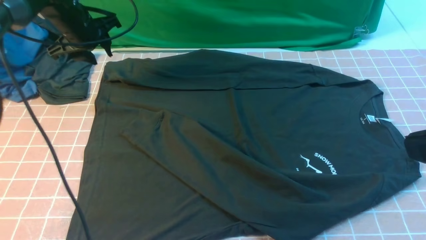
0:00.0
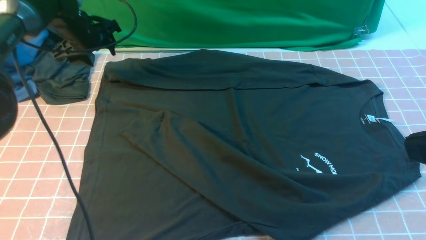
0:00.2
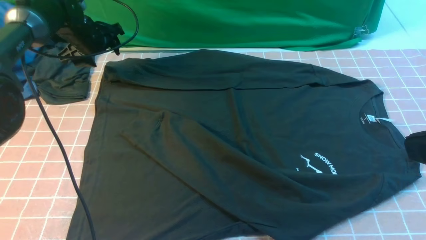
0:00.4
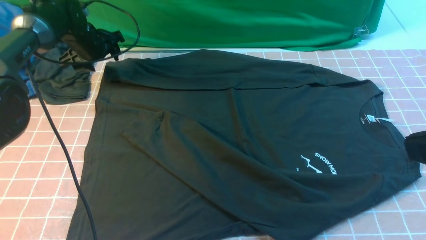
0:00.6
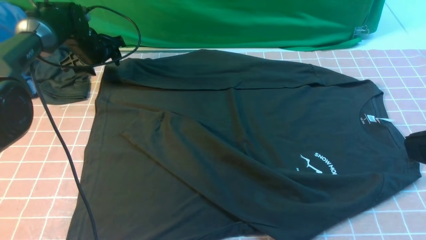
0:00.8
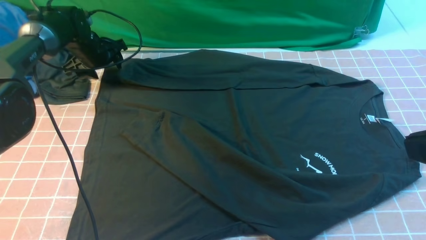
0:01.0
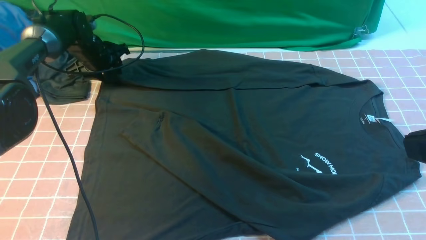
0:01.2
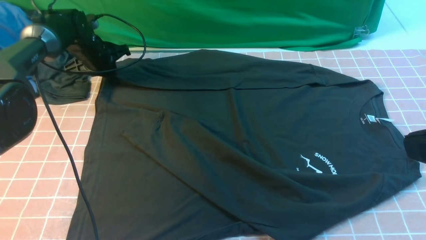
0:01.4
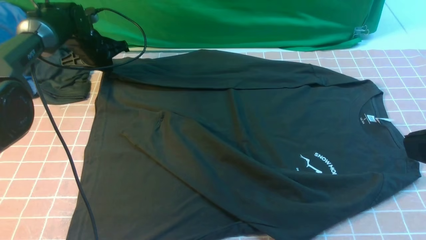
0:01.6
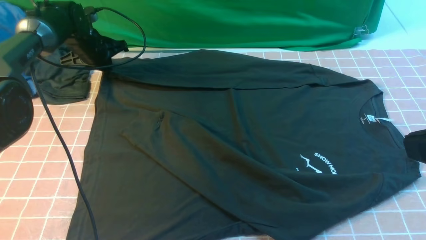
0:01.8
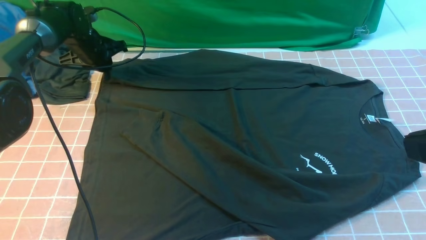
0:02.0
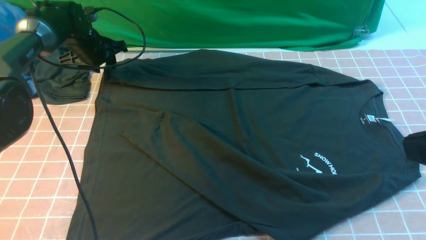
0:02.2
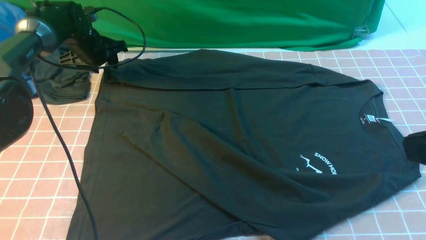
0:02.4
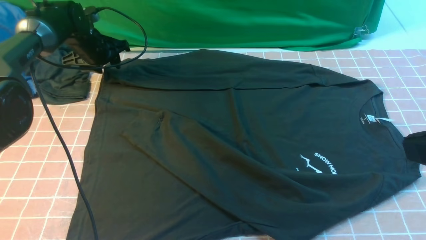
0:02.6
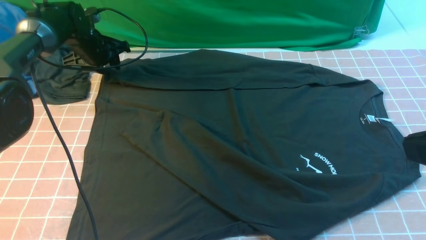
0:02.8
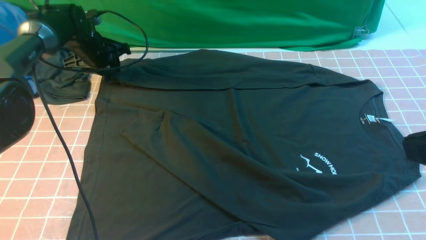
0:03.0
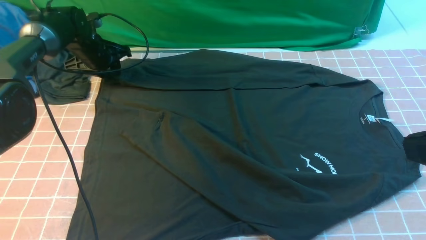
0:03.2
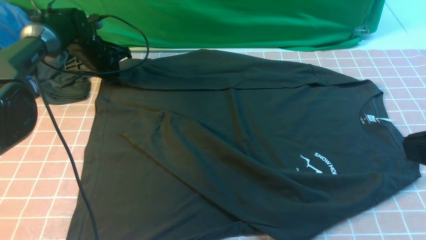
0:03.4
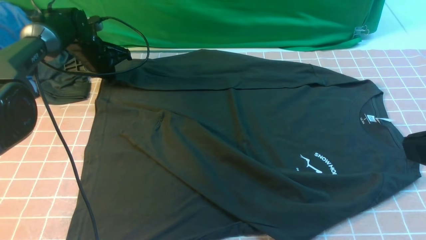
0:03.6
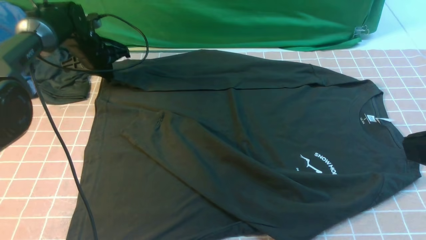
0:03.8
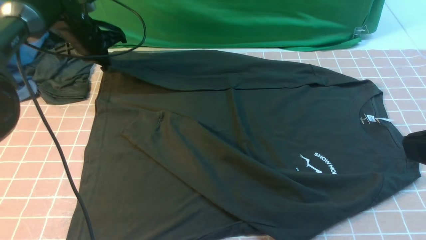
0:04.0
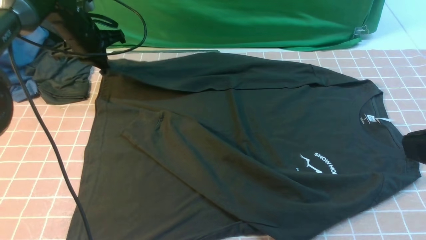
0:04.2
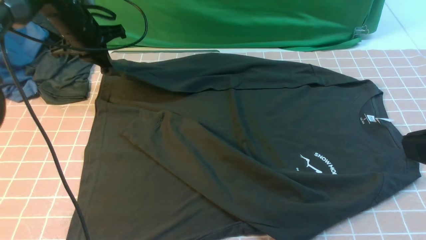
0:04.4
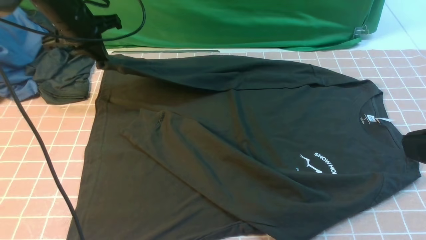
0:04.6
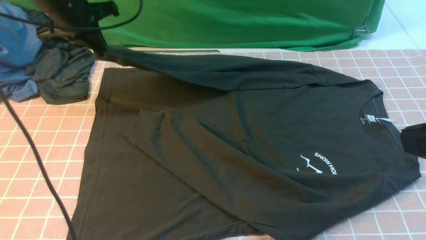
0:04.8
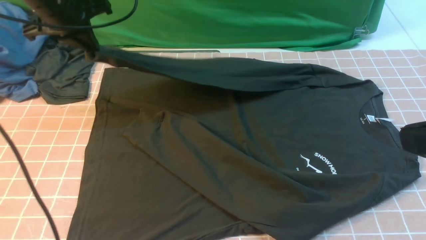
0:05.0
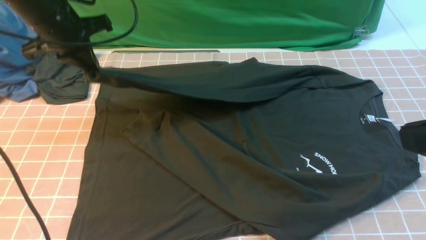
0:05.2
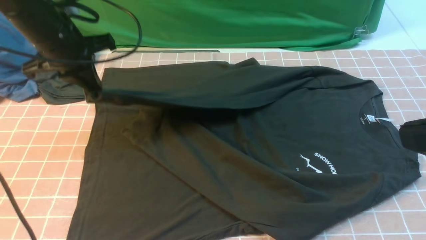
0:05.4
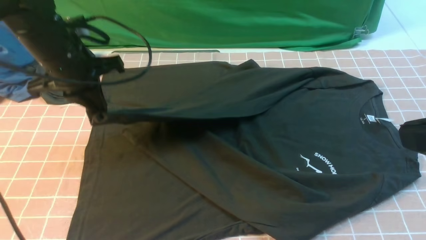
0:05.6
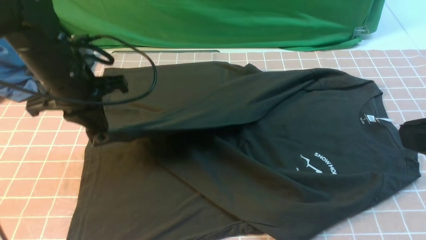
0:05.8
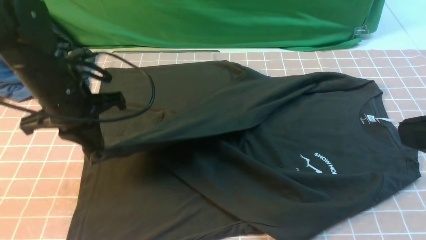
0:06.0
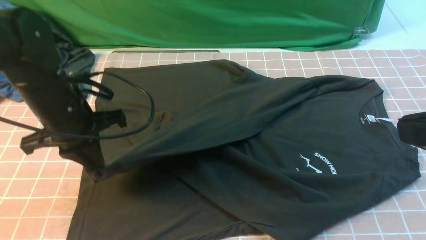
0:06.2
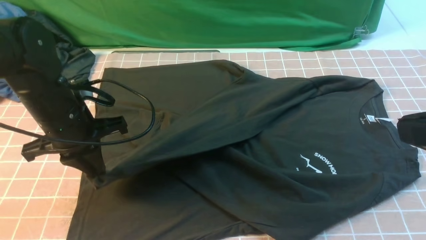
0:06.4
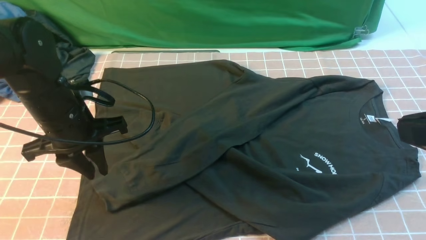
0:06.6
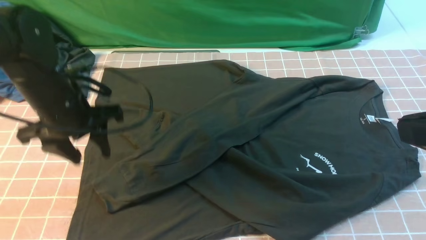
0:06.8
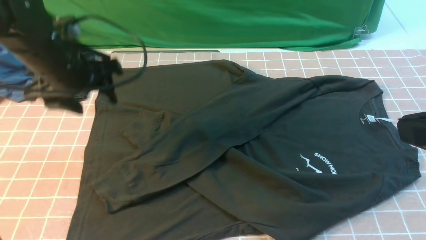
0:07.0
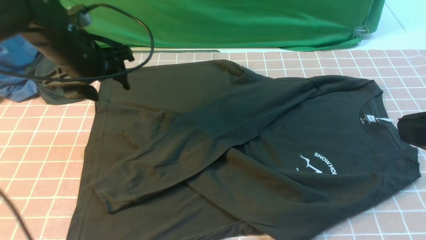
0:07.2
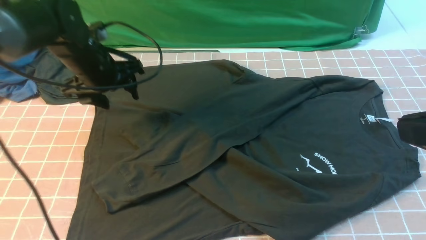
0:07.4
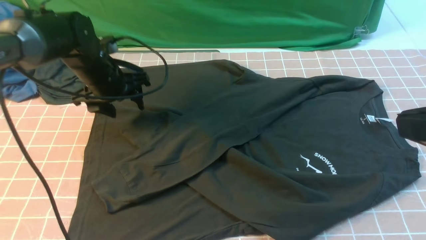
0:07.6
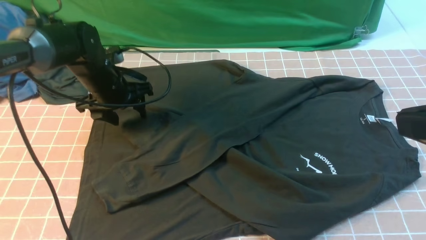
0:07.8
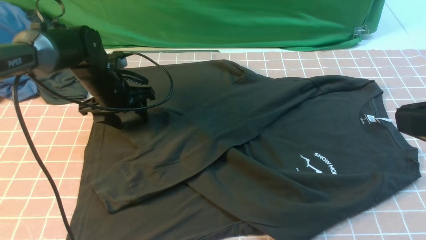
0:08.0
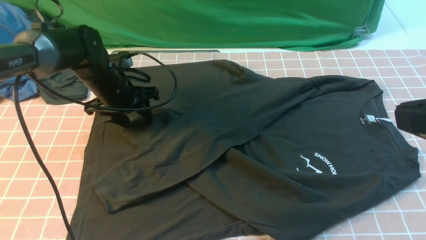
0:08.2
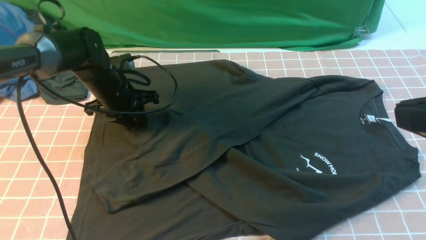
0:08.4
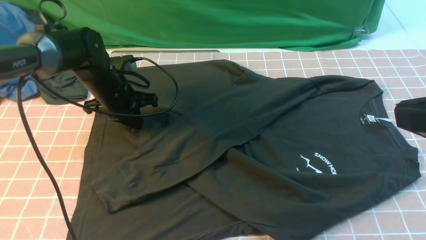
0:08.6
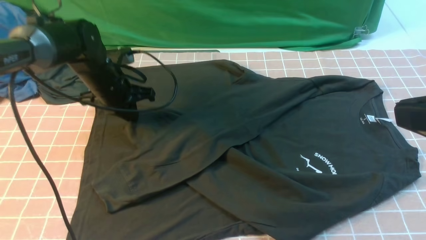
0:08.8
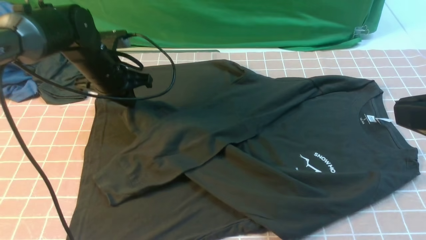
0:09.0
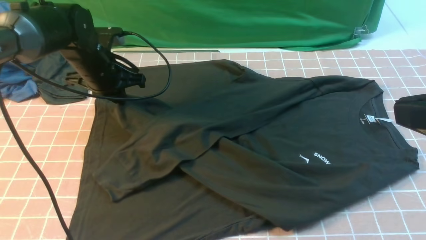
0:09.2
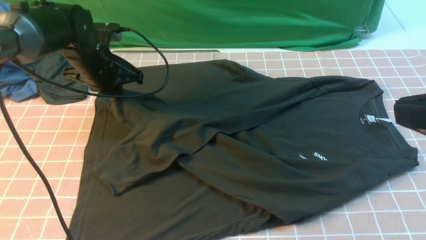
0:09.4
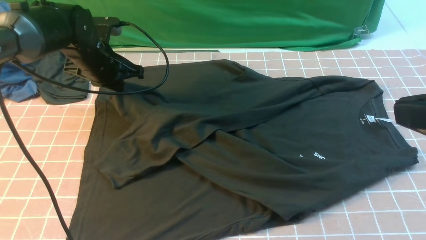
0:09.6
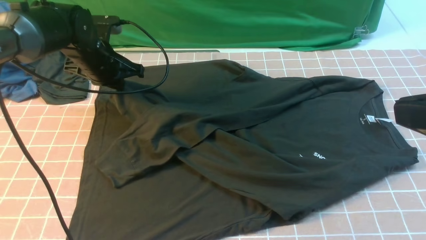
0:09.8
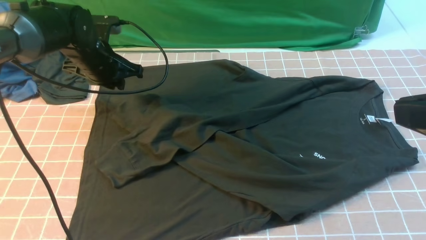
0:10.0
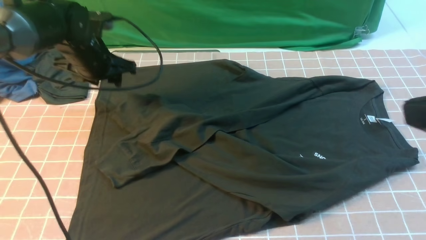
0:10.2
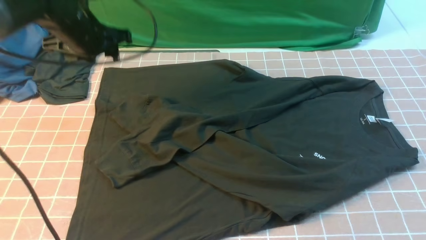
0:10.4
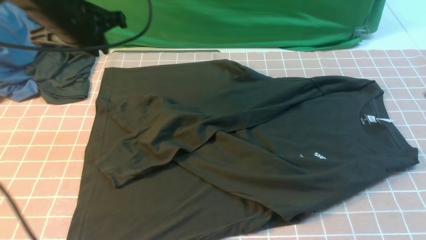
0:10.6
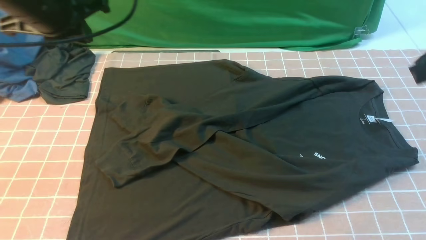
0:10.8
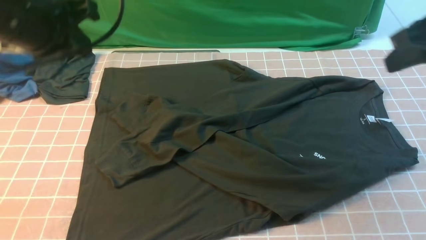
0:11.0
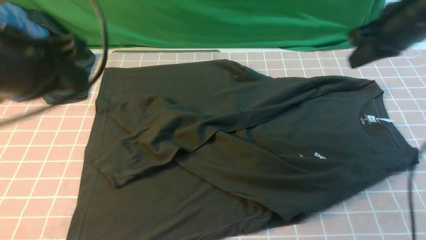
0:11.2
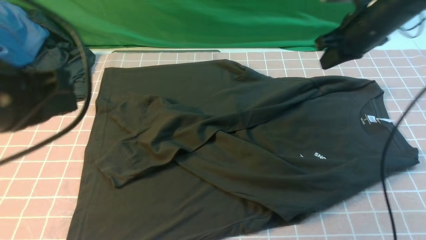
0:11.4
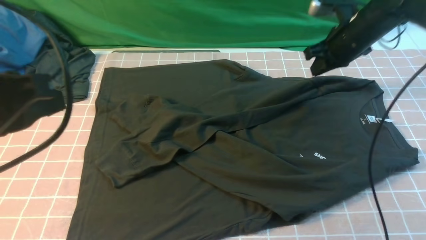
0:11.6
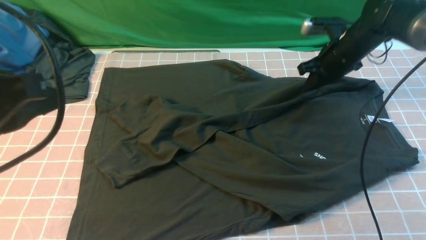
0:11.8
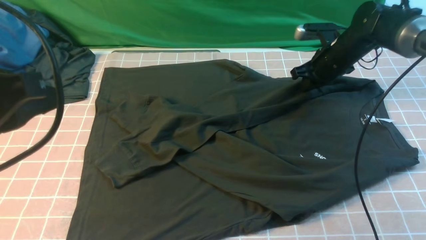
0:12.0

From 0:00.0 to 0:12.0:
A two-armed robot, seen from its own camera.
Step, from 0:00.0 to 0:06.6: use the left arm to drag and drop the cuff onto the cuff closest to the left arm.
Step, from 0:06.8 to 0:08.8: use the left arm to clamp the cuff closest to it.
From 0:00.0 to 0:01.6: The left gripper moves downward, about 5 cm, and closes up.
From 0:01.6 to 0:03.0: The left gripper opens its fingers.
From 0:03.0 to 0:04.4: The left gripper moves upward, approximately 10 cm, and closes.
From 0:04.4 to 0:06.0: The left gripper heads backward, covering approximately 20 cm.
From 0:06.0 to 0:07.6: The left gripper moves forward and downward, approximately 10 cm, and opens its fingers.
From 0:07.6 to 0:09.0: The left gripper closes.
From 0:09.0 to 0:10.4: The left gripper travels upward by about 10 cm, and opens up.
From 0:10.4 to 0:12.0: The right gripper shifts some 40 cm forward and downward. The left gripper travels backward by roughly 25 cm, and closes.

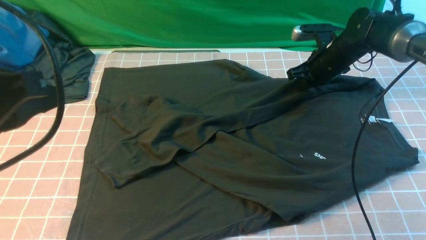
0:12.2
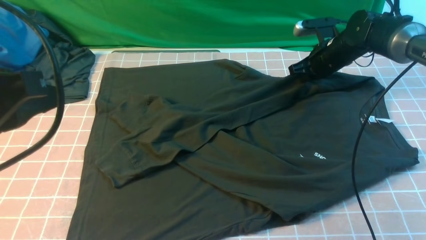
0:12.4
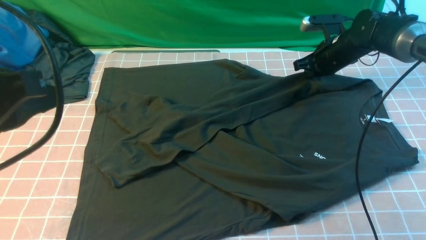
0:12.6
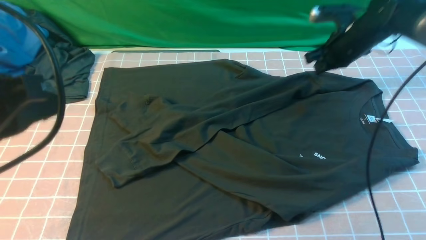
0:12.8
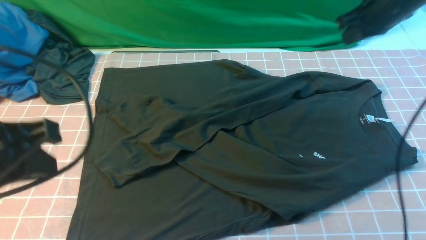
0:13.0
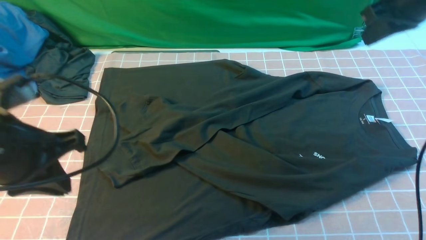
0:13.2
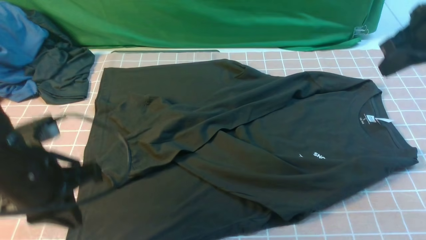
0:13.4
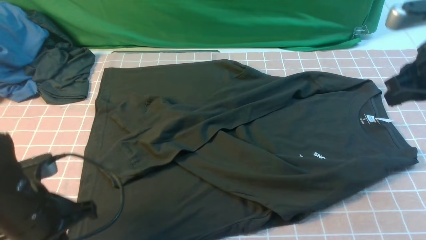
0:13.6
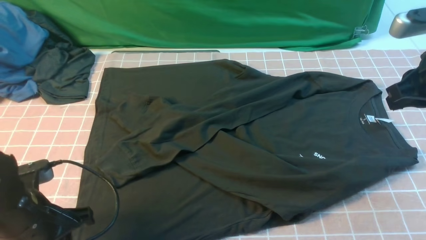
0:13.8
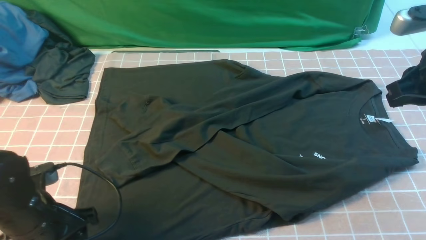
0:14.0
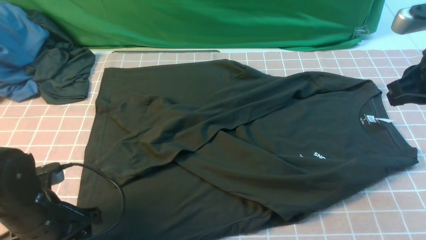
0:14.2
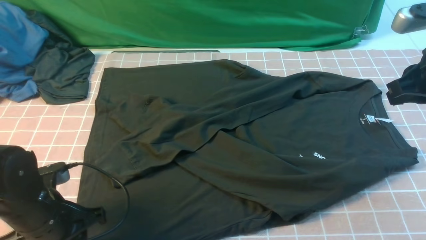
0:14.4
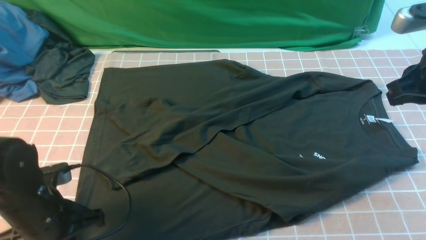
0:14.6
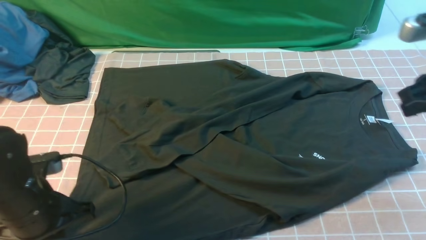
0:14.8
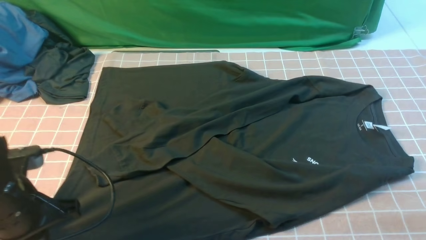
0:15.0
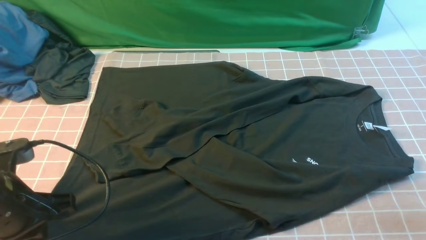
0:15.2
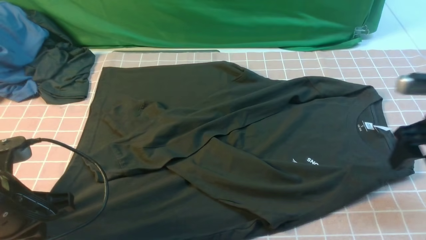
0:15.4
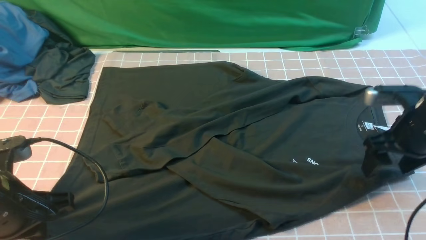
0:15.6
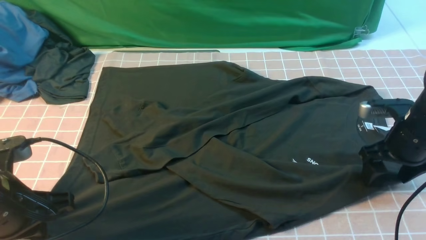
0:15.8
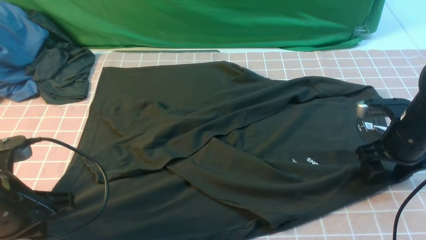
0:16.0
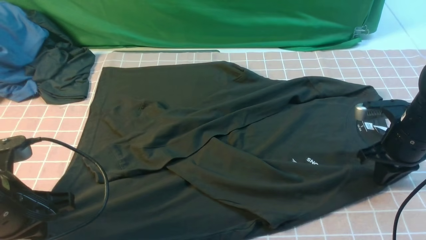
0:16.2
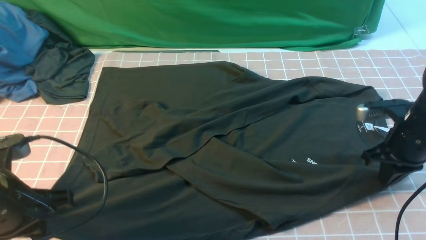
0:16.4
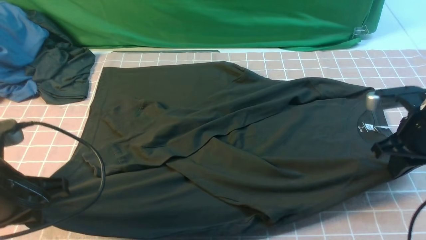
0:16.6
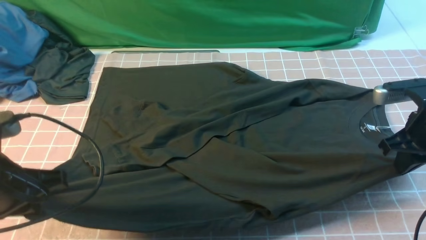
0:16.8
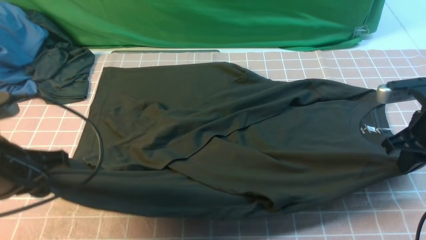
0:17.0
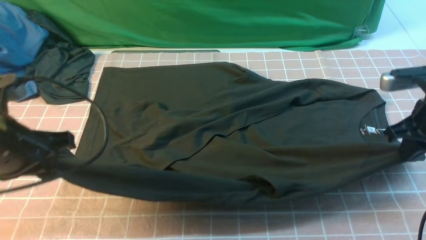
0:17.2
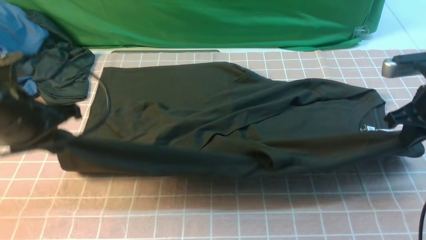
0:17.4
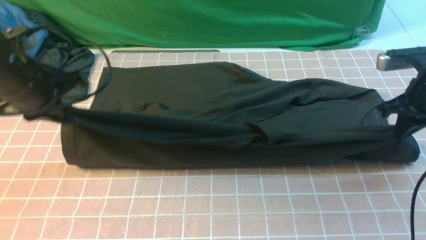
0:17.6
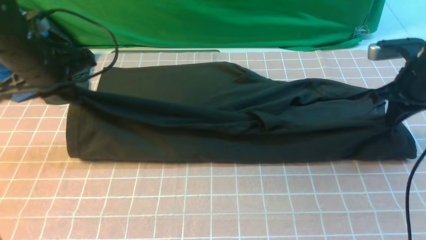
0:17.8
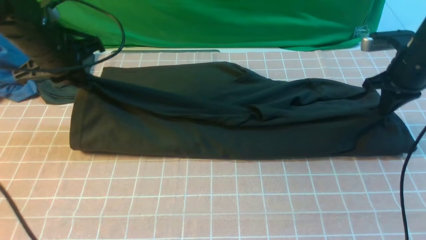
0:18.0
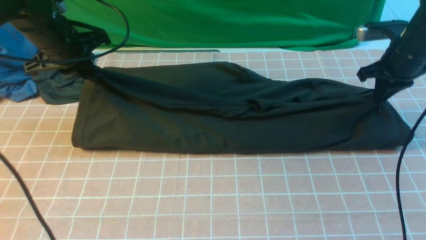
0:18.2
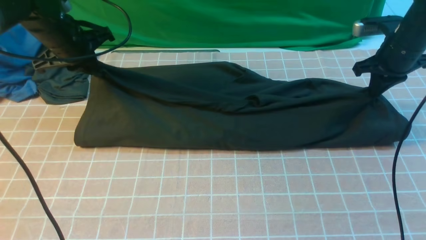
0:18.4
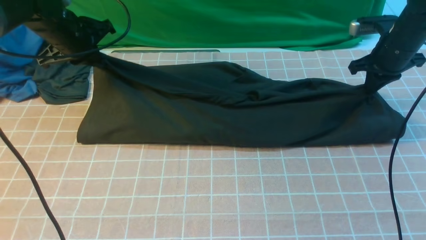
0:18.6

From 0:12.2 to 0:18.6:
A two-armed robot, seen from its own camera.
Step, from 0:12.2 to 0:16.6: use both arms simultaneously to clamp the lower edge of the clothing fabric.
From 0:12.2 to 0:13.8: The right gripper moves backward and upward, some 25 cm, while the left gripper travels downward by some 20 cm, and opens its fingers.
From 0:13.8 to 0:15.4: The right gripper shifts approximately 10 cm downward, and opens its fingers. Meanwhile the left gripper moves upward, approximately 5 cm, and closes its fingers.
From 0:15.4 to 0:17.0: The right gripper closes up.
From 0:17.0 to 0:18.6: The two grippers go some 20 cm forward.
